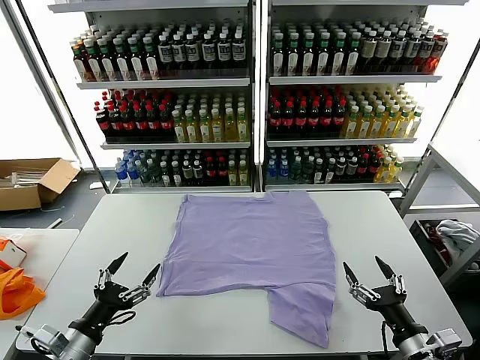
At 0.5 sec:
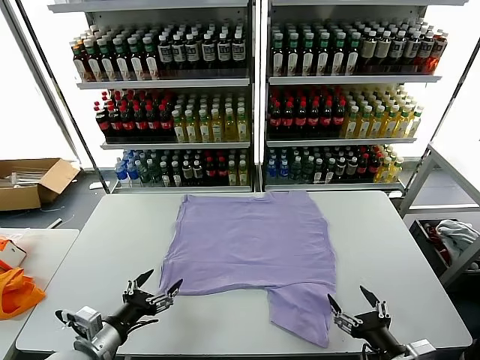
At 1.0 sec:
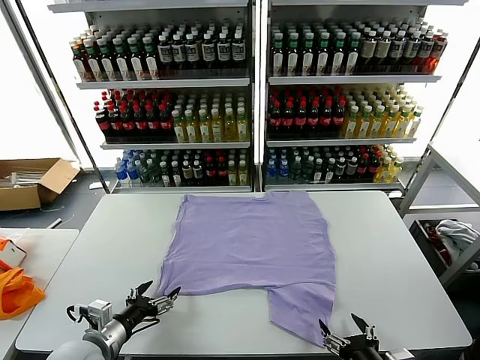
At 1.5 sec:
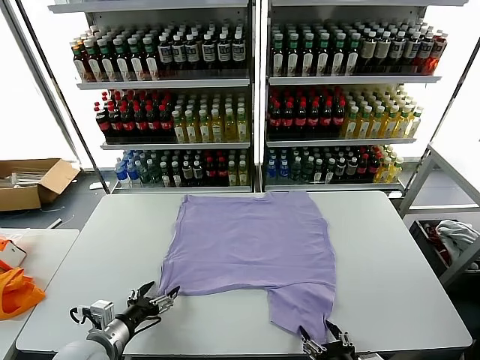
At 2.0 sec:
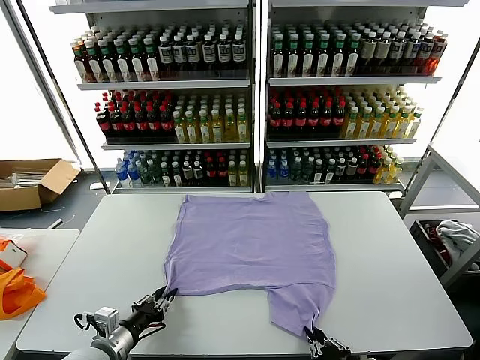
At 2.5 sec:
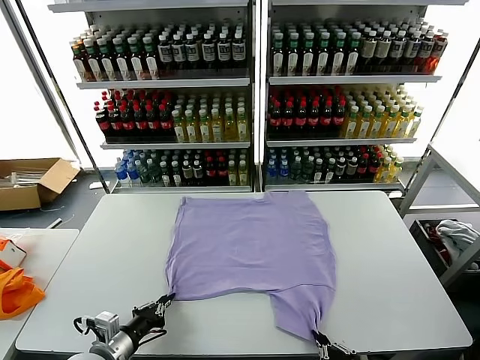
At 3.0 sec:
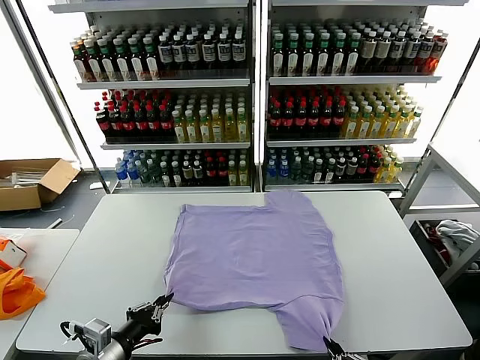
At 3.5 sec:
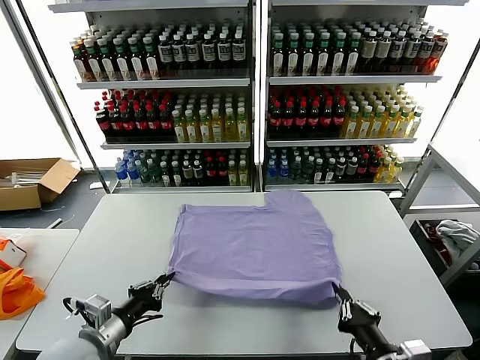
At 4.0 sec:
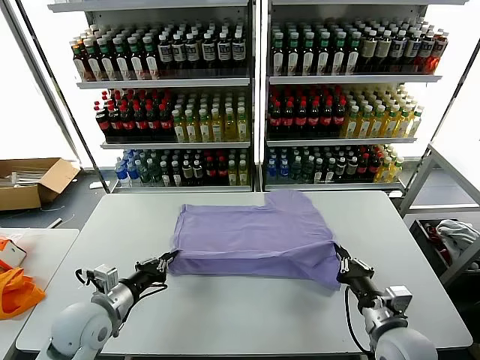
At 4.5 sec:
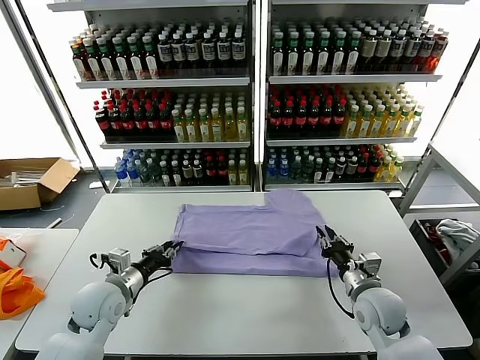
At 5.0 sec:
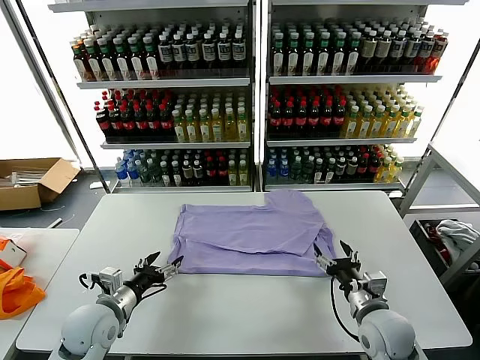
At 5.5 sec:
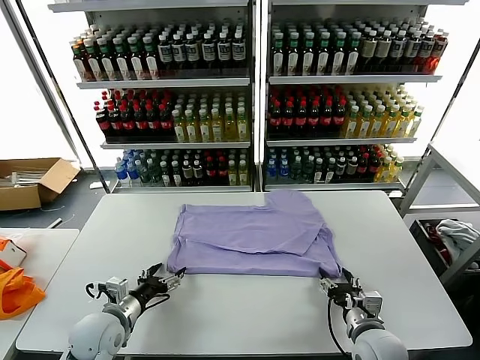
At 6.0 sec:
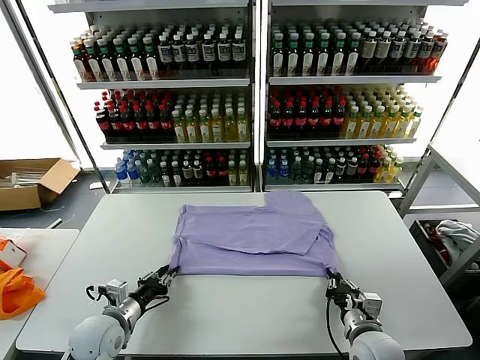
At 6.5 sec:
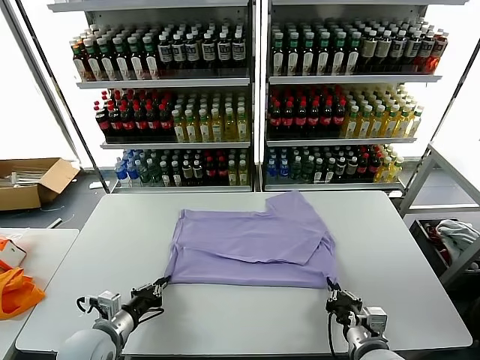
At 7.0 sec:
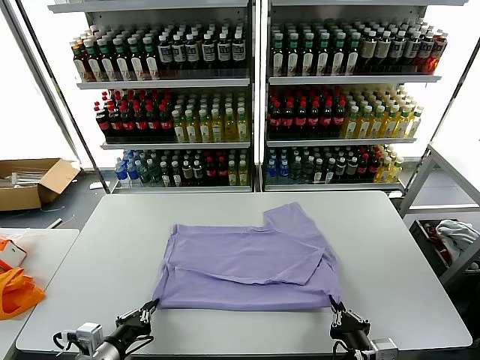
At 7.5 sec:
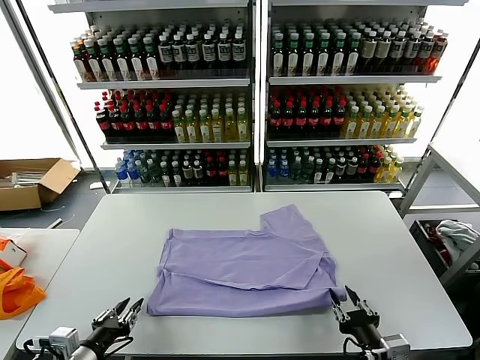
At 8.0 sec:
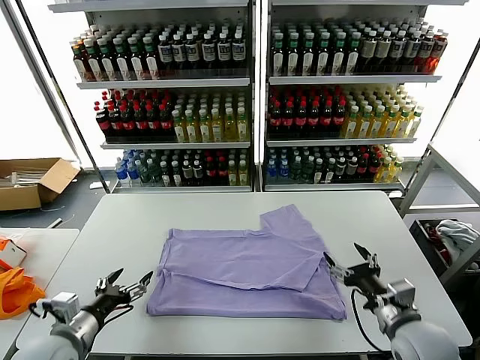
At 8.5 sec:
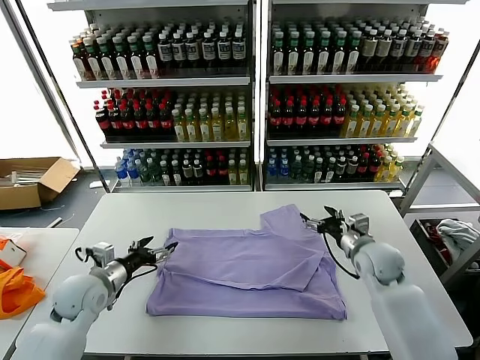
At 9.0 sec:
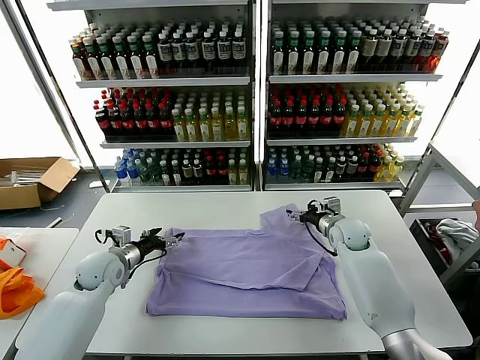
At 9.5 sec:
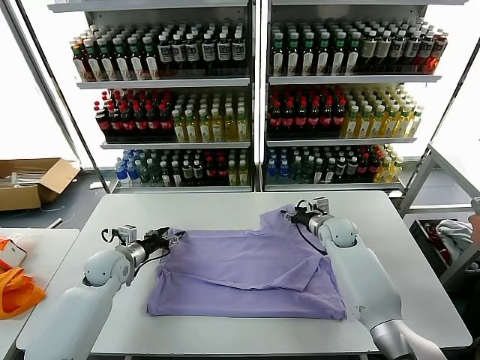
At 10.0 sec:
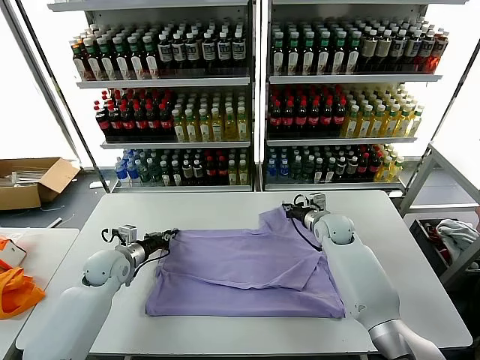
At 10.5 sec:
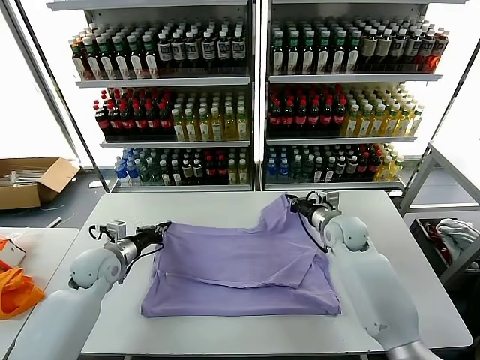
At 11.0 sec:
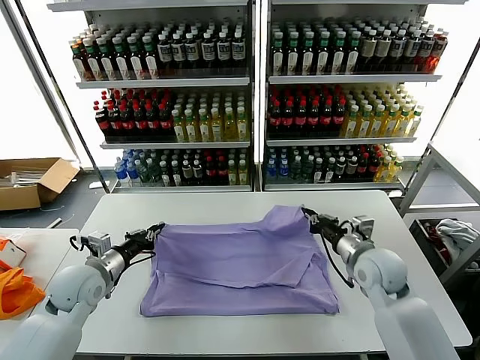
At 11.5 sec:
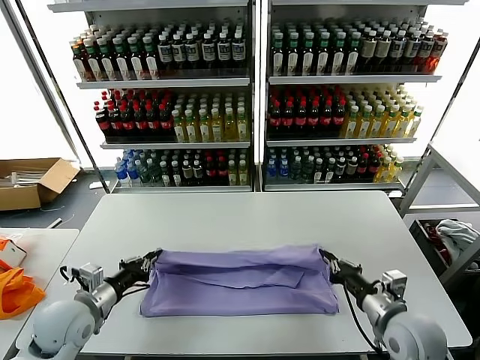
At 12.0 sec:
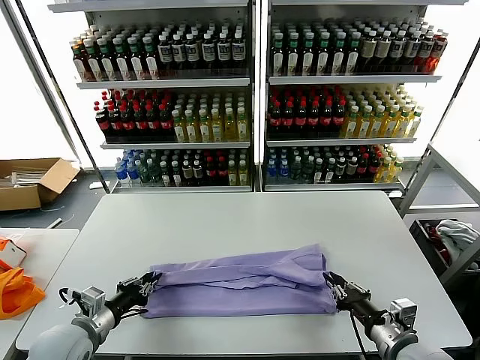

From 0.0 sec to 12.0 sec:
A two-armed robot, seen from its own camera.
Task of the whole recording: fold and organize the clothes.
Step, from 0.0 sec to 2.5 sec: use both grippers simultaneously to clamp the lower edge of the clothing fabric.
Step, from 3.0 sec to 4.5 sec: use both grippers to drag the lower edge of the fabric forward and fold it over the upper edge.
Step, from 5.0 sec to 7.5 sec: Drag the clothes downward with both gripper.
Step, from 8.0 sec to 10.0 sec: use both grippers simultaneously to clamp the upper edge of the clothing fabric.
From 2.0 sec to 4.0 sec: The right gripper shifts some 15 cm forward, while the left gripper is displaced forward and upward by about 10 cm.
From 4.0 sec to 6.0 sec: The right gripper moves roughly 5 cm forward and comes back, and opens, then closes once more. Meanwhile the left gripper goes roughly 5 cm downward, and opens and closes again.
From 6.0 sec to 8.0 sec: The right gripper heads upward and to the right, covering approximately 10 cm, travels backward and back again, about 10 cm each way, and opens up. The left gripper is displaced upward and backward by approximately 10 cm, and opens its fingers.
From 8.0 sec to 10.0 sec: Both grippers travel together forward, roughly 25 cm. The left gripper closes; the right gripper closes its fingers.
From 10.0 sec to 12.0 sec: The left gripper moves backward, about 20 cm. Meanwhile the right gripper goes about 35 cm backward.

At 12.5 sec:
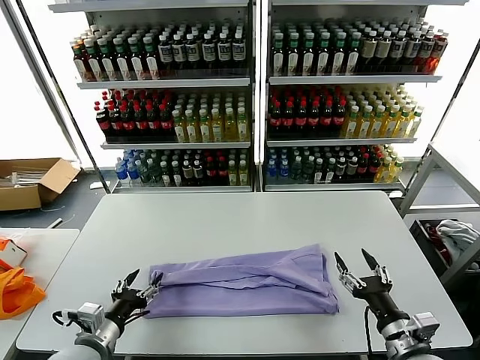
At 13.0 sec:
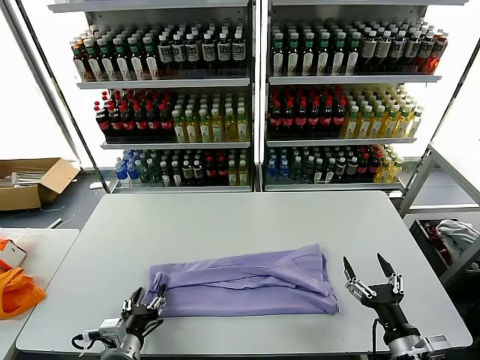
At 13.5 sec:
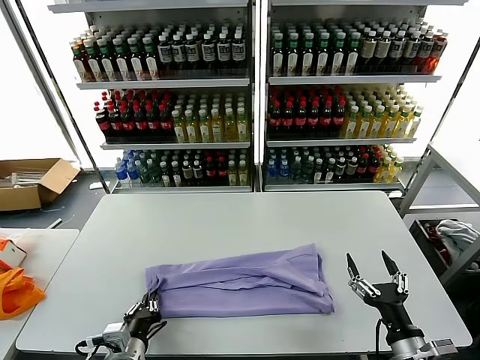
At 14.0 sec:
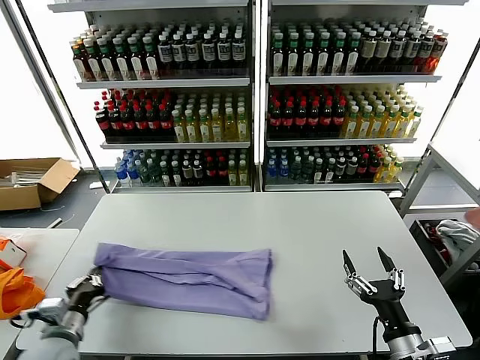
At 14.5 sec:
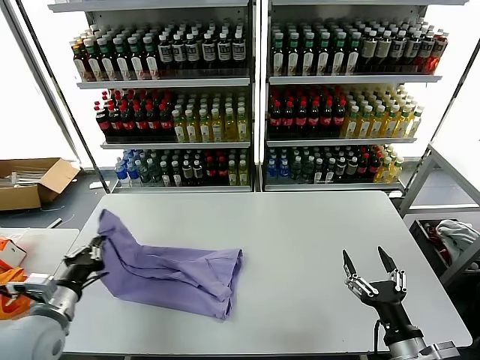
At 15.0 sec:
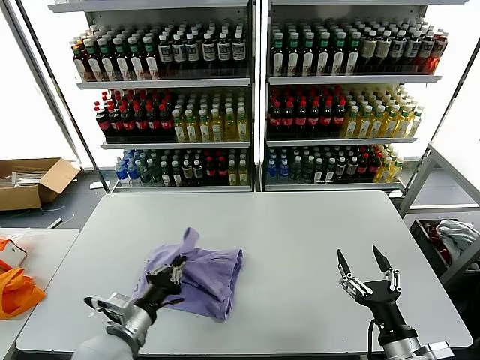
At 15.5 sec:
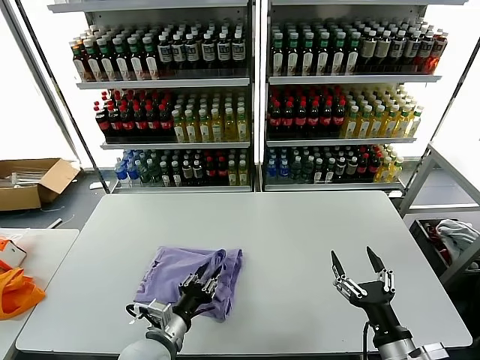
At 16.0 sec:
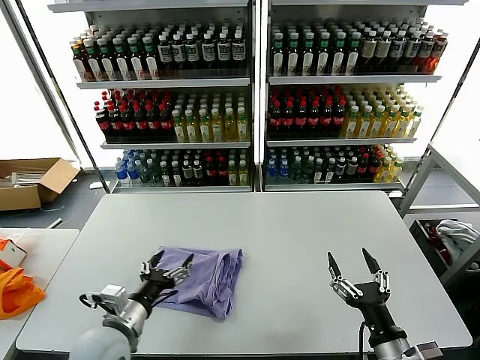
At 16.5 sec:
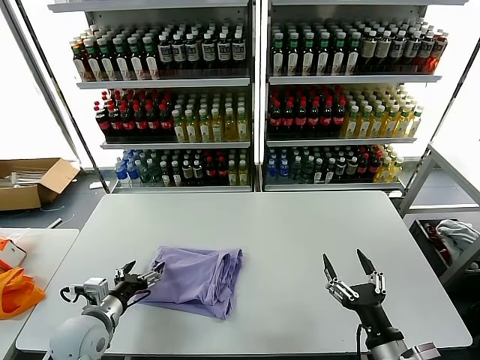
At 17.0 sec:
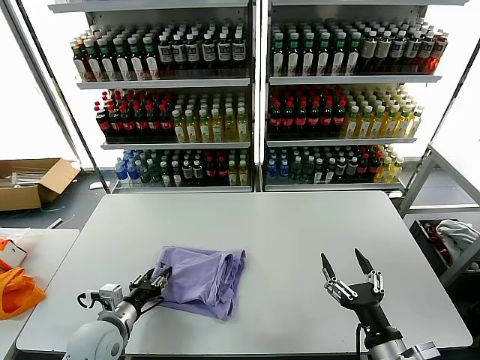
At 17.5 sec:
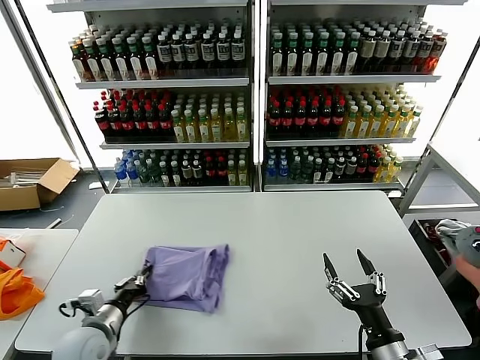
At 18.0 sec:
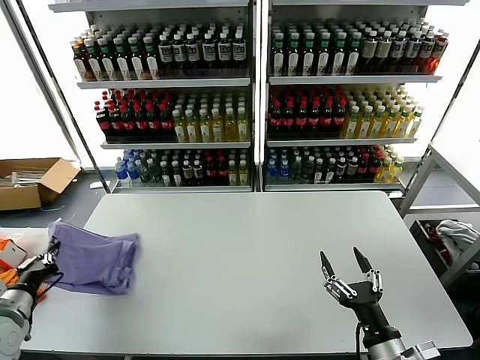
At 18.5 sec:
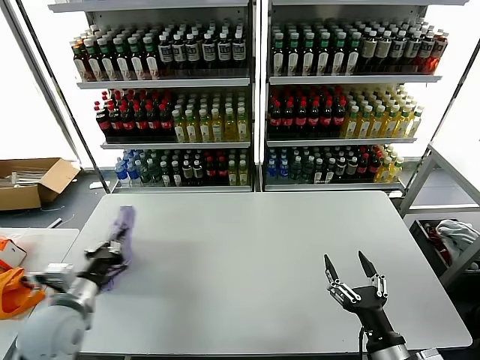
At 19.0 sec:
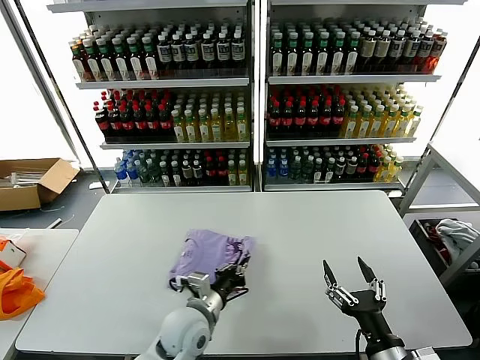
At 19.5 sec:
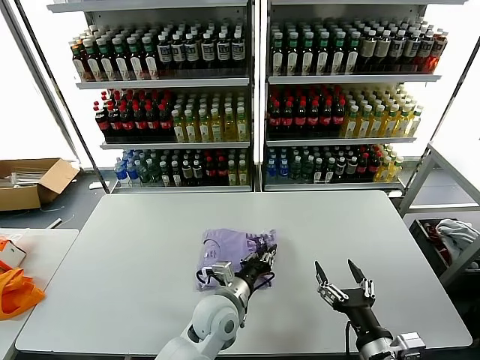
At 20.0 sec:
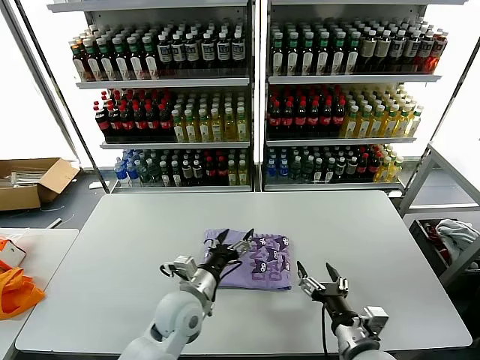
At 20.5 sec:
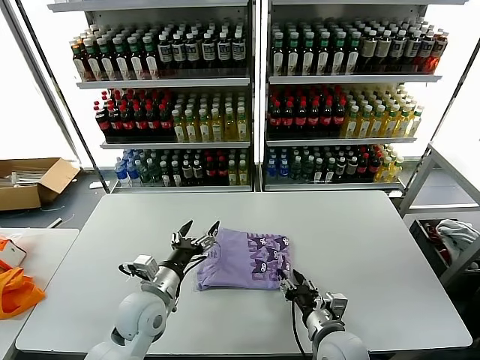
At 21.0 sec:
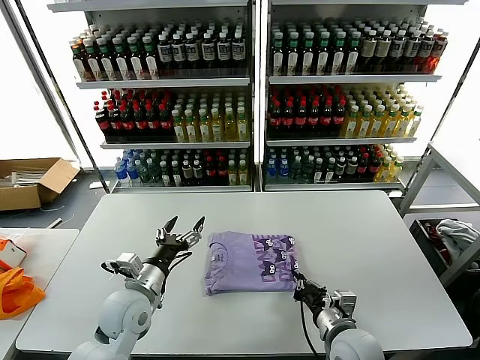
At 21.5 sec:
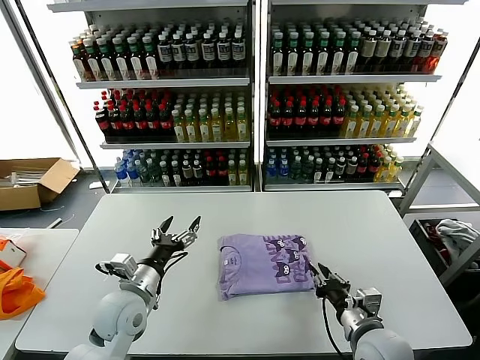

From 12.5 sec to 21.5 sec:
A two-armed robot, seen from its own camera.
Task of the whole recording: fold and organize the clothes.
Step, from 12.5 sec to 13.5 sec: use the left gripper to clamp the left edge of the fabric.
Step, from 14.0 sec to 15.5 sec: use the left gripper to drag the left edge of the fabric to the left and folds it over the right edge.
Step, from 16.0 sec to 19.5 sec: Flip the folded clothes over with left gripper.
From 12.5 sec to 14.5 sec: The left gripper heads to the left and upward, covering some 10 cm, and closes up.
From 14.5 sec to 17.0 sec: The left gripper shifts roughly 10 cm downward and to the right, and opens its fingers.
From 17.0 sec to 19.5 sec: The left gripper is displaced to the right by about 25 cm.
From 19.5 sec to 21.5 sec: The left gripper goes roughly 20 cm to the left, and opens its fingers. The right gripper goes some 10 cm forward, and closes up.

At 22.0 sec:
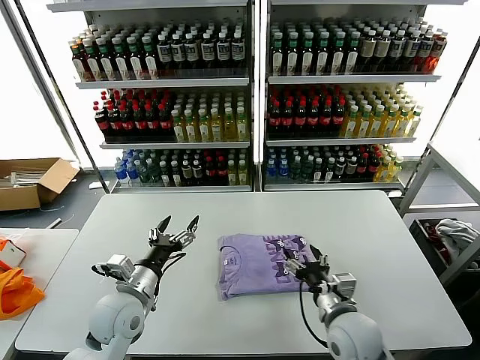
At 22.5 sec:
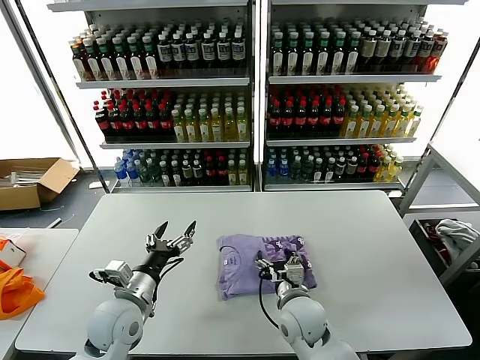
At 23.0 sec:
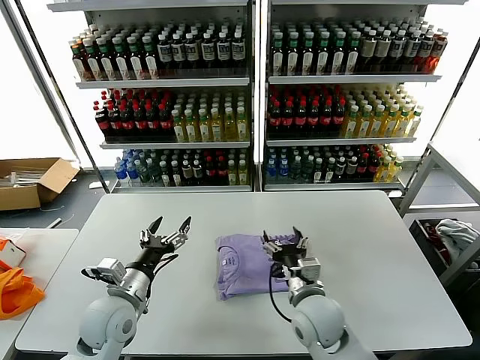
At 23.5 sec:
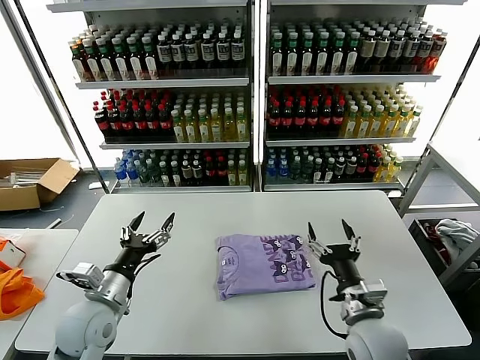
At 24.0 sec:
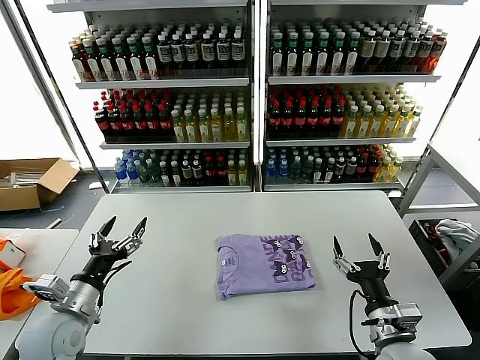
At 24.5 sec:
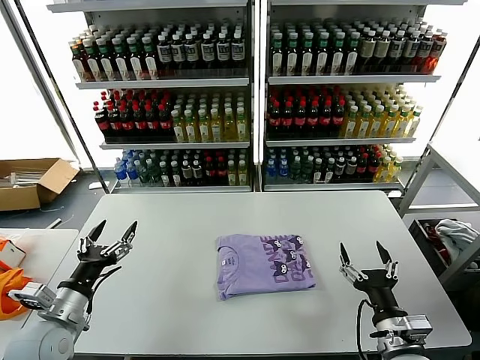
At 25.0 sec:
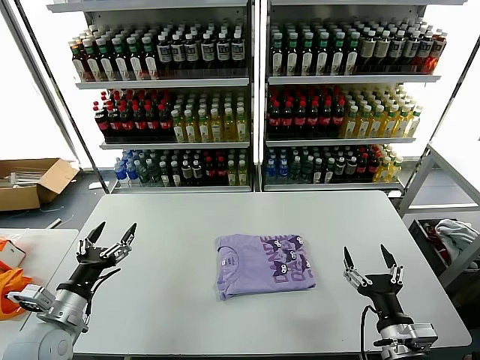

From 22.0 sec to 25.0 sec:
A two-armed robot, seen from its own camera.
Task of the whole recording: fold and organize the clothes.
From 22.0 sec to 23.5 sec: The right gripper travels to the left and back again, approximately 10 cm each way.
From 23.5 sec to 25.0 sec: The left gripper is displaced to the left by approximately 10 cm. The right gripper travels backward and to the right by about 10 cm.
